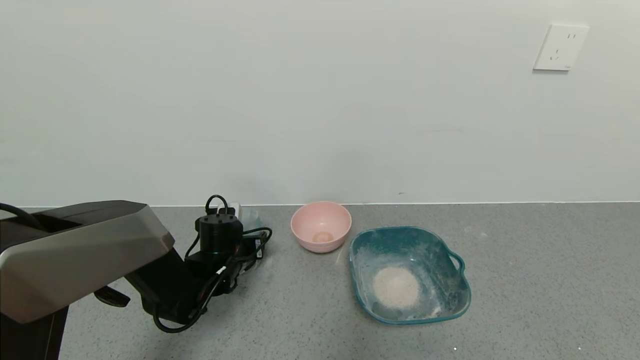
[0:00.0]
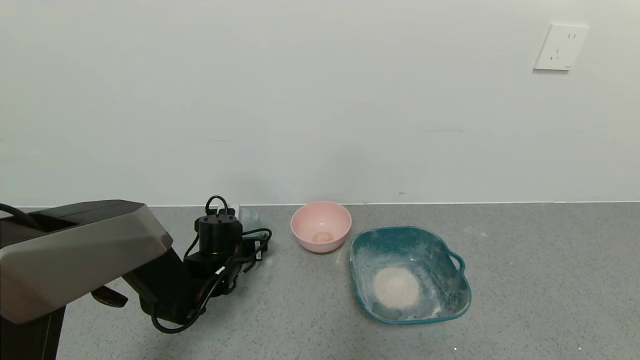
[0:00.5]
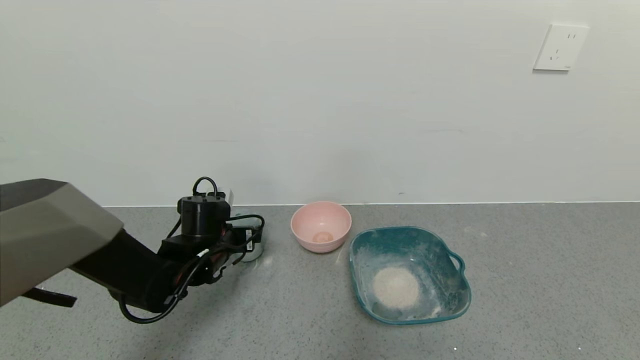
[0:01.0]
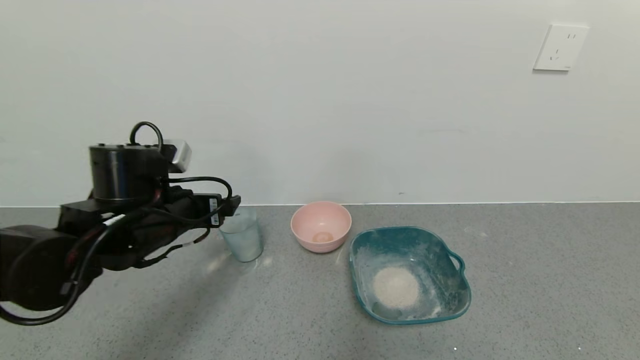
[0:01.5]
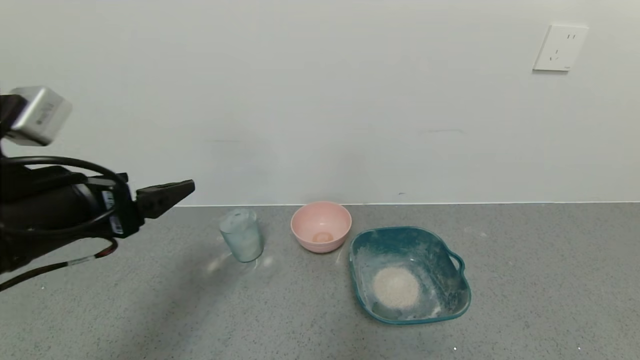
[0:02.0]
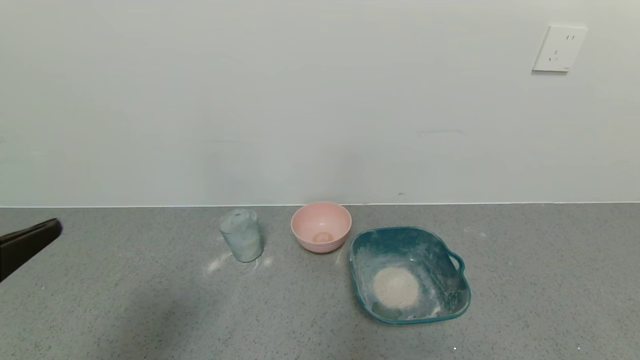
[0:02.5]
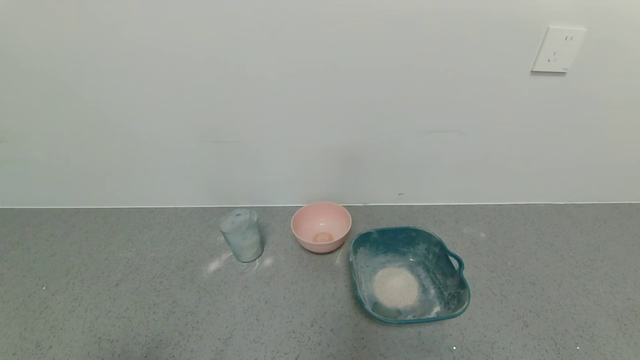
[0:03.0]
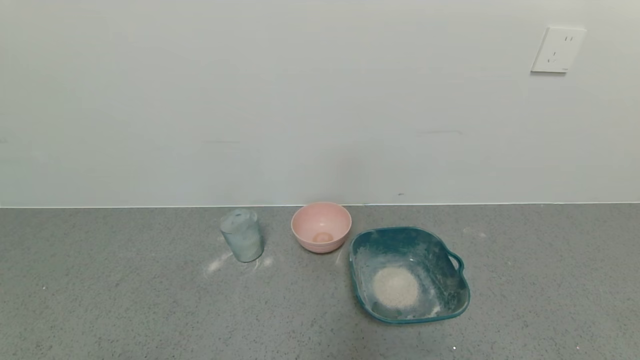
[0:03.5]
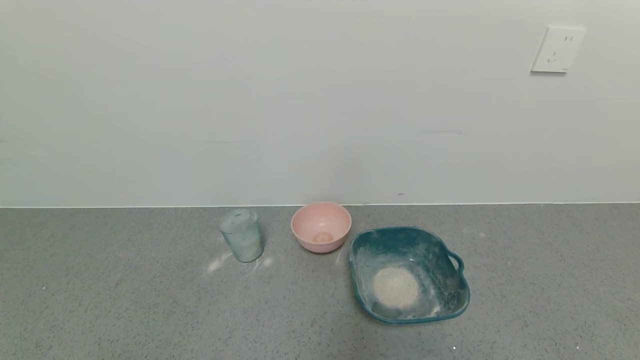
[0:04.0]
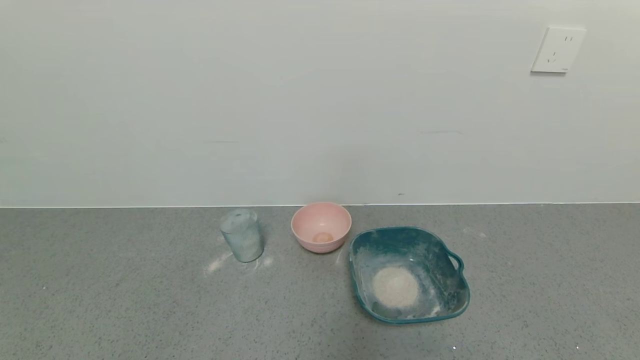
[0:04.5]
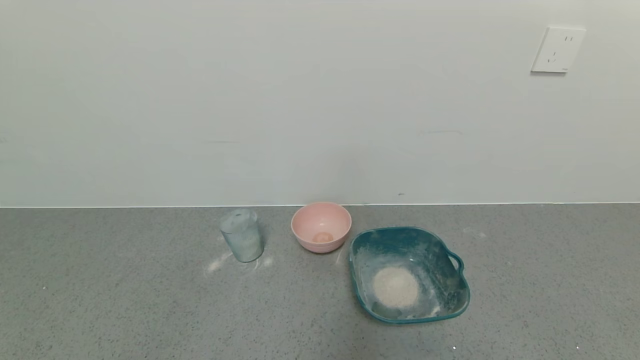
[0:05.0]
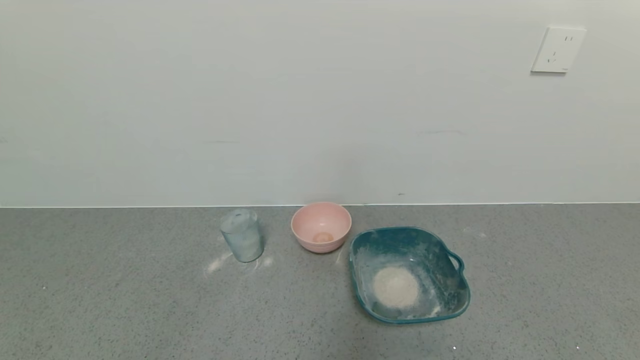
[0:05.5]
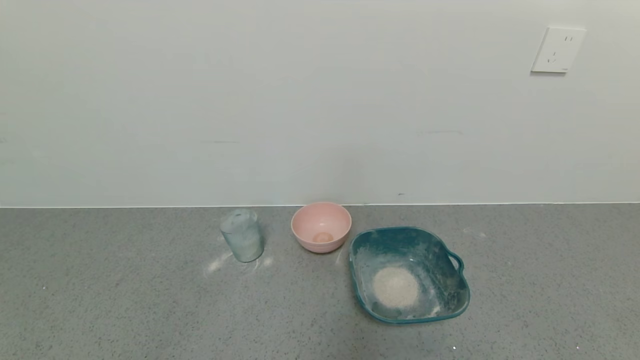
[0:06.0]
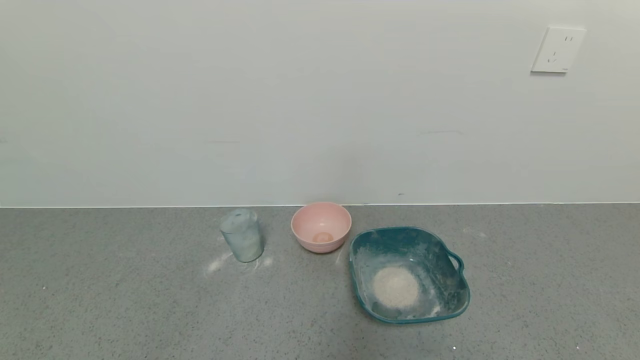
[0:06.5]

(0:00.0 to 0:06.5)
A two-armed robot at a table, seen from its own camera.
Task of the whole recording: use a gripper to pick up the cup and pour the powder into a bowl or tray.
0:00.0 - 0:02.0: The left gripper shifts about 30 cm upward and backward, and opens up.
0:02.0 - 0:04.5: The left gripper travels backward and downward by approximately 25 cm.
